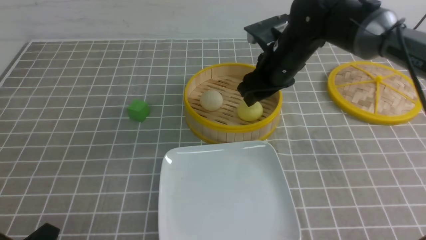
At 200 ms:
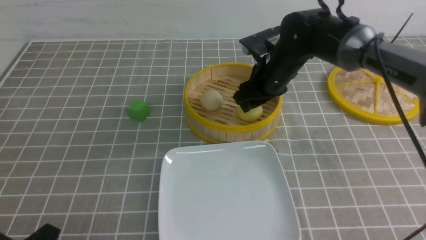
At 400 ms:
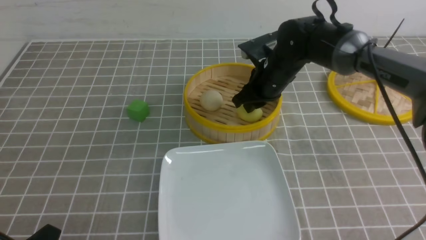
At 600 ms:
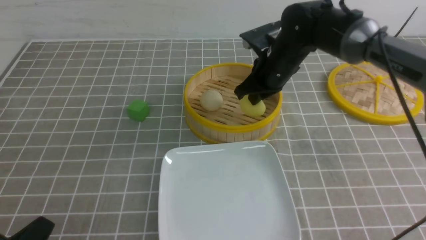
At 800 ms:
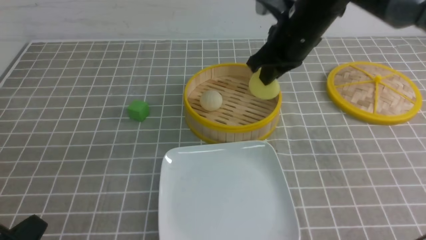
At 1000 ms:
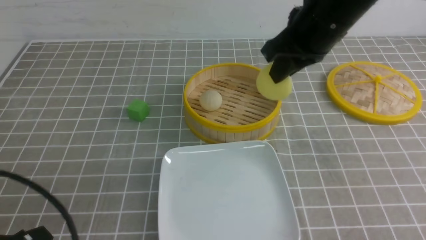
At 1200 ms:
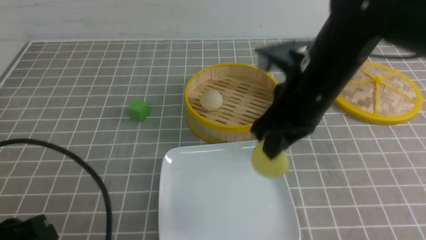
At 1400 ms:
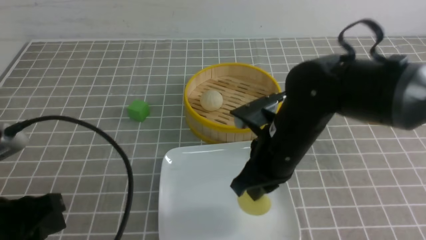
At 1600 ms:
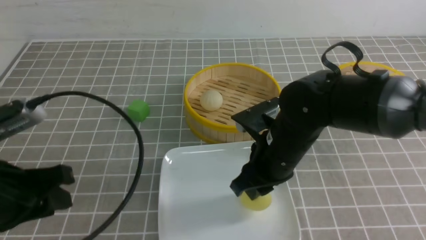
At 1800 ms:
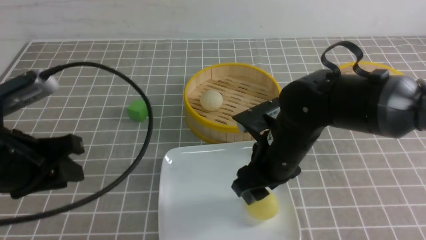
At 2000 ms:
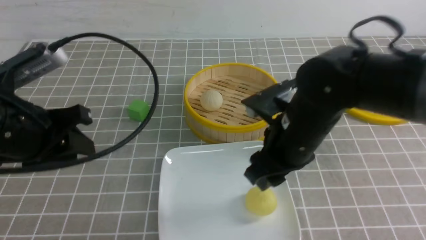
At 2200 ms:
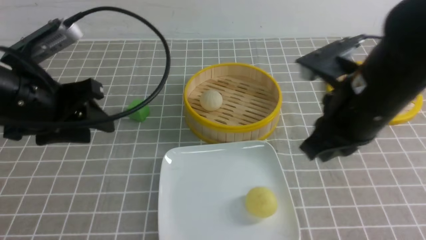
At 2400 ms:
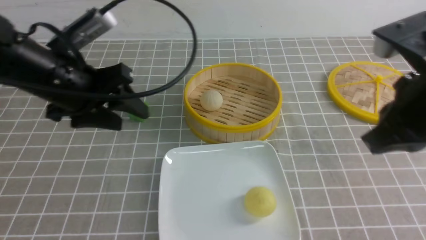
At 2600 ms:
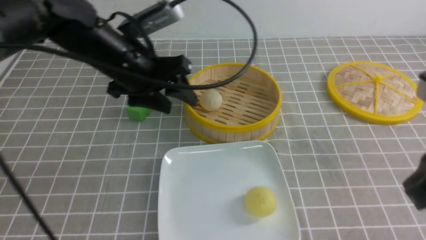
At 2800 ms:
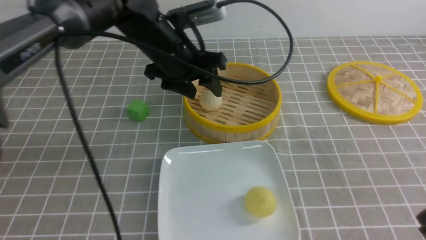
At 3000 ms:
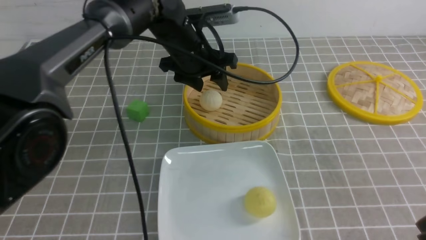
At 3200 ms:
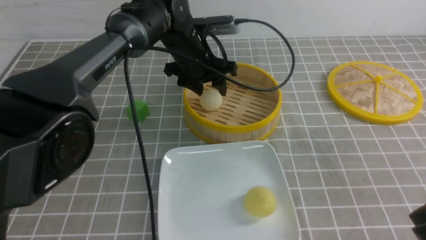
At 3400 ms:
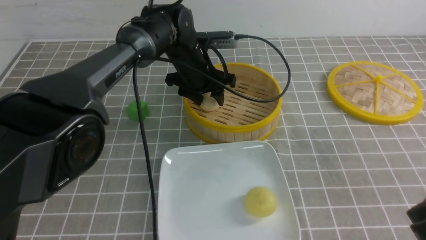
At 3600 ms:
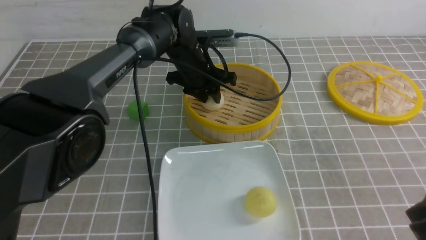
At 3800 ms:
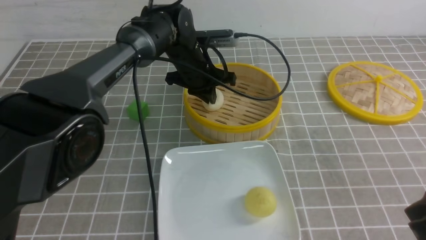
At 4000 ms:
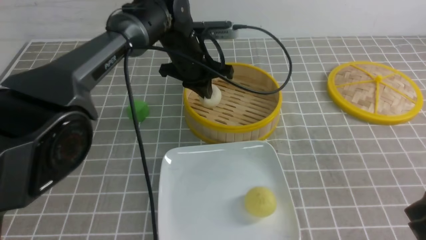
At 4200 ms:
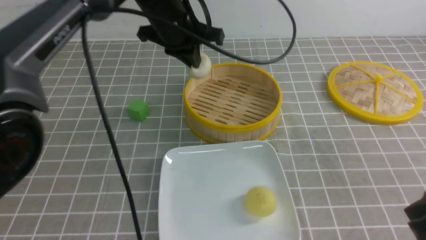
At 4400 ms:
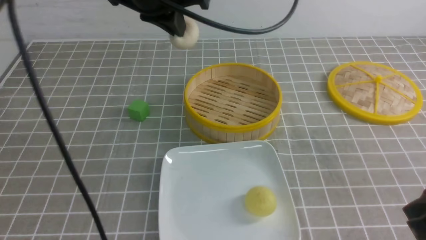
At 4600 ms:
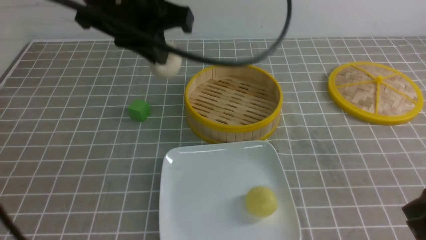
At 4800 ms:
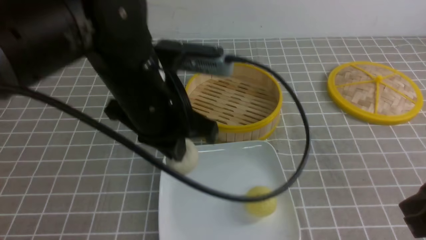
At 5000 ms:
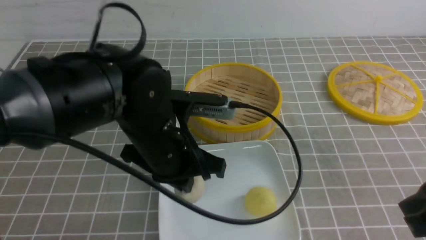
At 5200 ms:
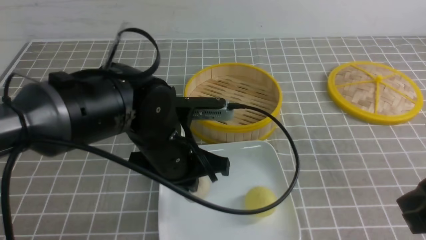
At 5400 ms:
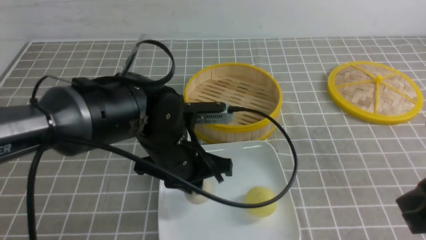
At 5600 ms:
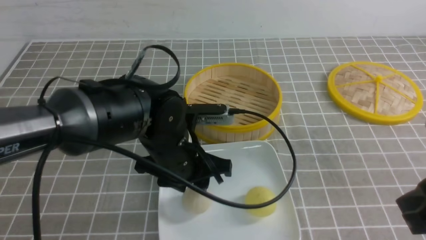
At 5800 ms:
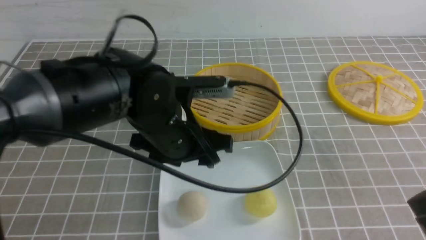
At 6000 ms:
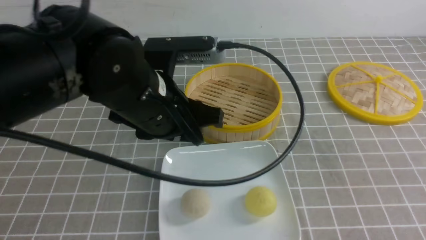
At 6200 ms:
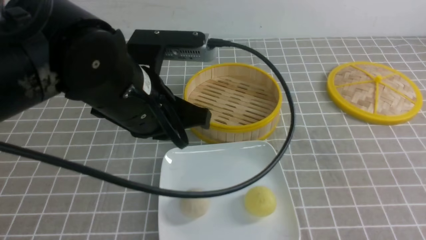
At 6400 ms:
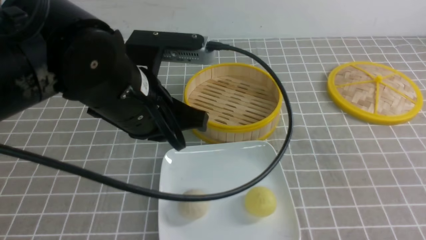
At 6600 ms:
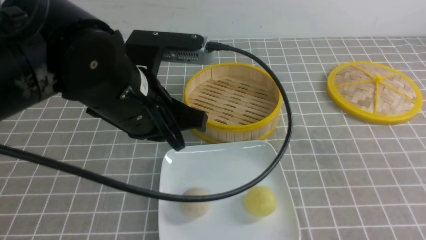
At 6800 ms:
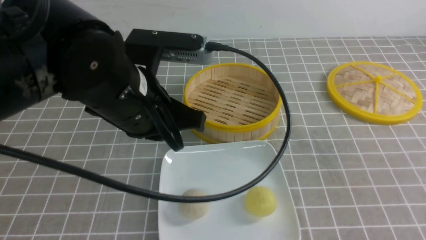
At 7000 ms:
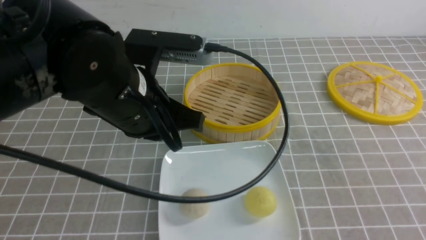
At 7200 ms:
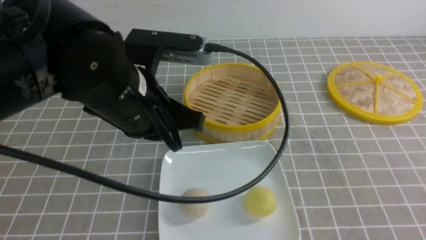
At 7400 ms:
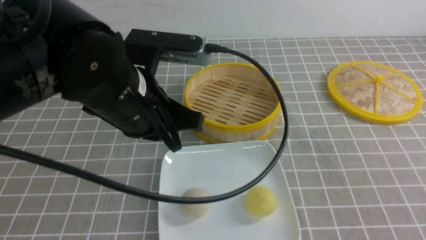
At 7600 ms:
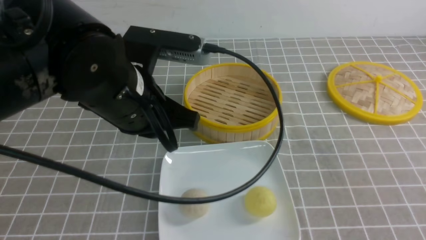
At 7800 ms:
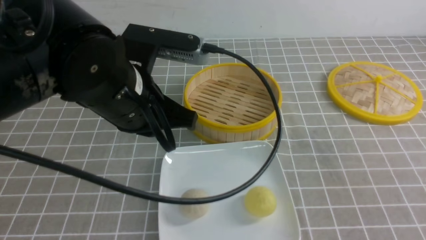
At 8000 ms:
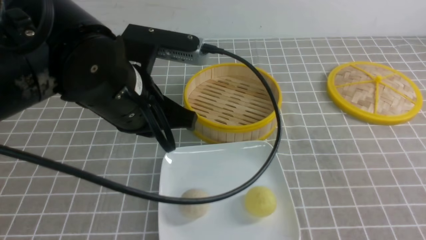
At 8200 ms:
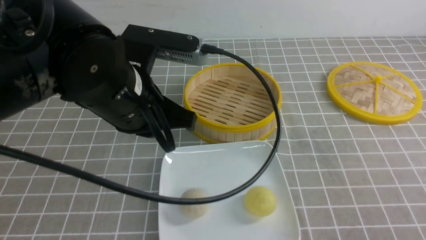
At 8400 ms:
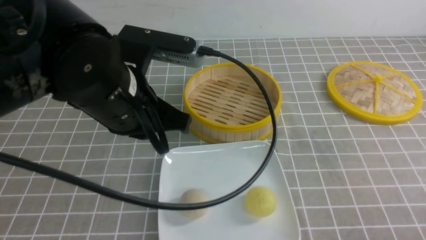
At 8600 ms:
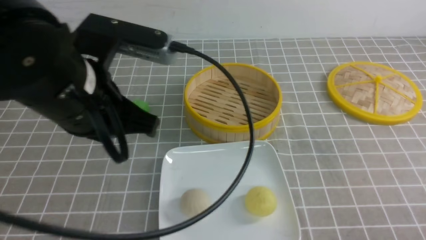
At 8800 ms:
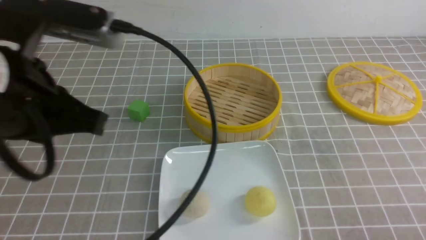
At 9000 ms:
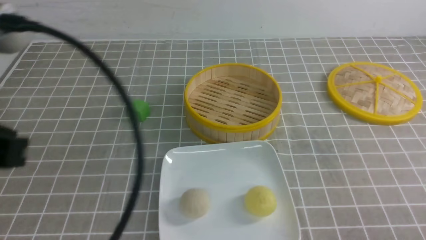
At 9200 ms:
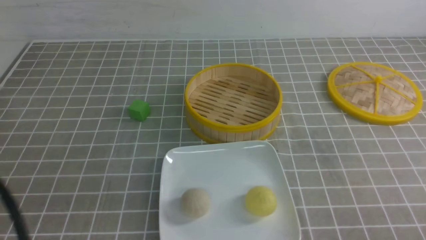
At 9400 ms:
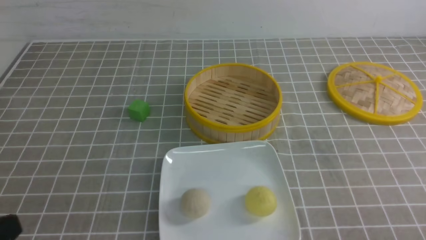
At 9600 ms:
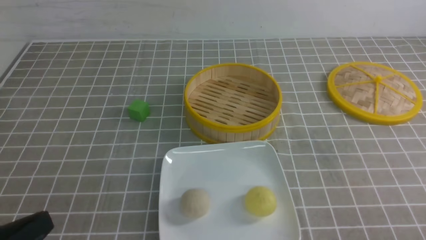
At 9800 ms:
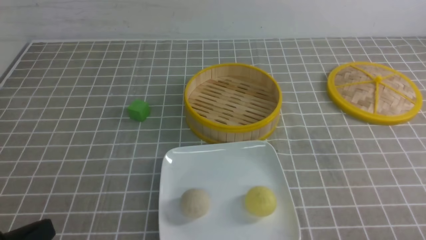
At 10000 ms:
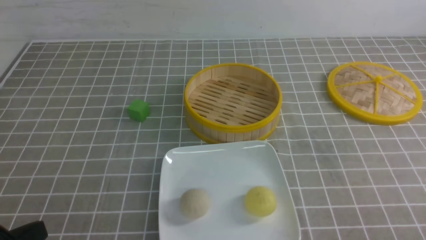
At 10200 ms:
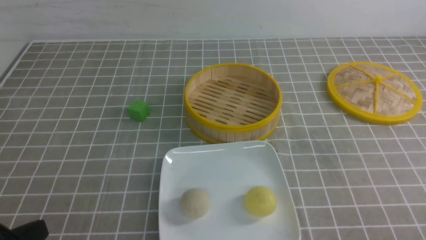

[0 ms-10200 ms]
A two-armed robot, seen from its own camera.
Step, 800 ms to 1600 ms: use the right arm to put the steamed stuffed bun into the plate.
Step, 1800 ms to 4000 ms: use the left arm to grab the steamed stuffed bun that is closest to it.
Step, 4200 ms to 5600 ms: use the left arm to put the steamed stuffed bun into the plate.
0 ms to 1400 ms: The right gripper shifts approximately 15 cm backward, and closes up. Meanwhile the left gripper shifts approximately 10 cm upward and forward.
1400 ms to 3000 ms: The right gripper is displaced to the right, backward and upward by roughly 25 cm, and opens, then closes once more; the left gripper moves forward and to the right, approximately 35 cm, and opens up.
3000 ms to 4400 ms: The left gripper heads upward and backward, covering roughly 15 cm, and closes.
4400 ms to 5800 ms: The left gripper heads downward and backward, covering approximately 15 cm, and opens.
5800 ms to 7200 ms: The right gripper heads backward, covering some 5 cm; the left gripper goes approximately 5 cm upward, and closes.
7200 ms to 8800 ms: The left gripper shifts some 15 cm to the left, backward and upward; the right gripper is displaced downward by approximately 10 cm.
8800 ms to 10200 ms: The left gripper shifts roughly 20 cm downward, backward and to the left.

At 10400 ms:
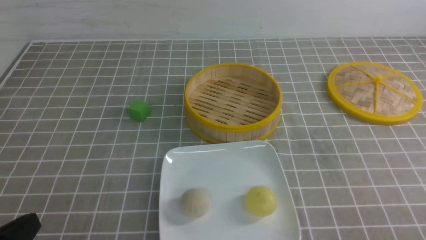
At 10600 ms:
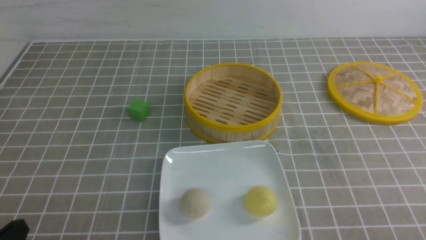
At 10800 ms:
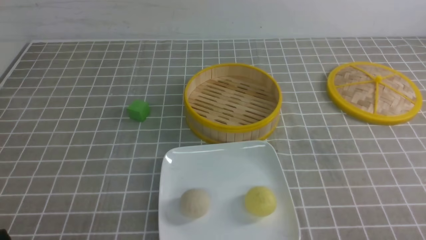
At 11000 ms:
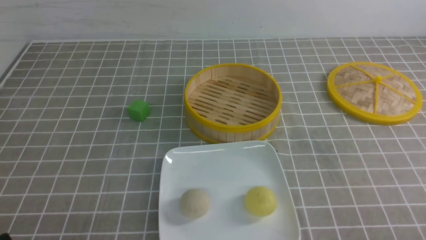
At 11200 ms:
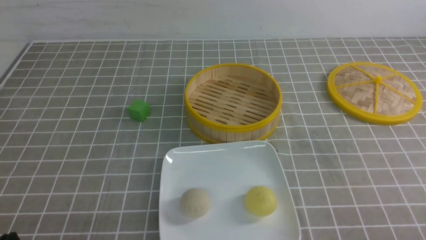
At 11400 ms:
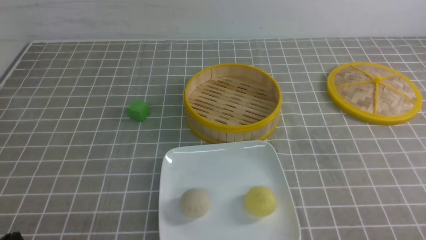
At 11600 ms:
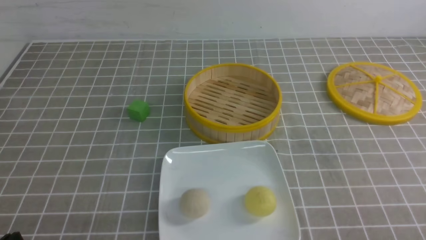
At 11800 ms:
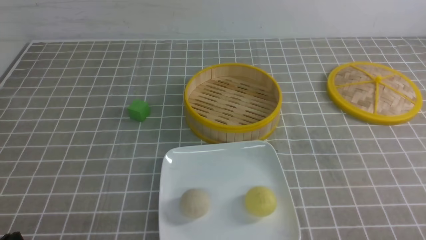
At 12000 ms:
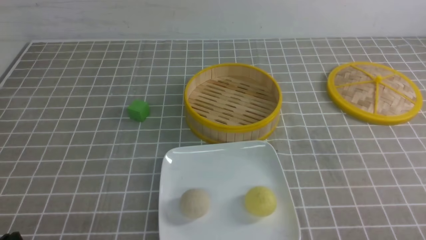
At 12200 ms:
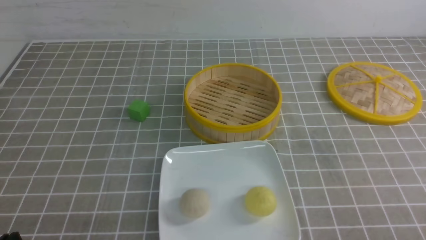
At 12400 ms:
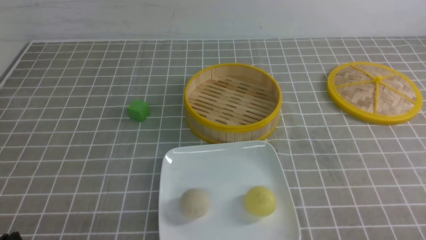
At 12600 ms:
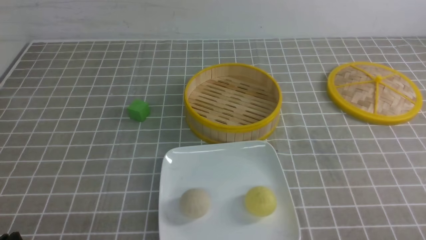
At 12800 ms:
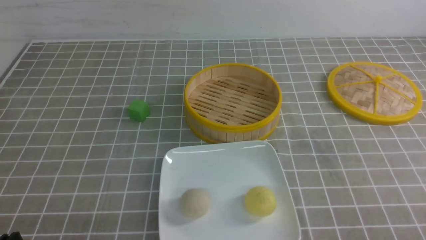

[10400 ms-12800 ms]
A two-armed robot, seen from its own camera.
10400 ms to 11600 ms: The left gripper heads downward, covering about 5 cm.
11600 ms to 12800 ms: Both grippers stay put.
